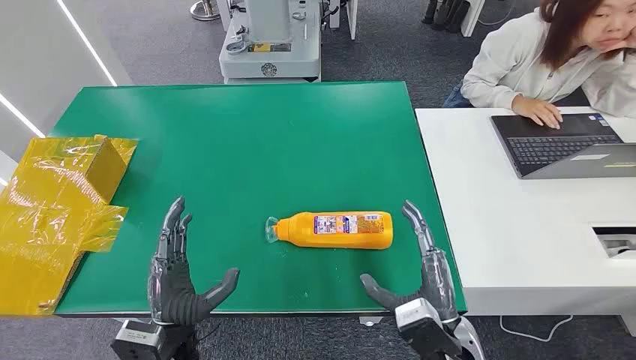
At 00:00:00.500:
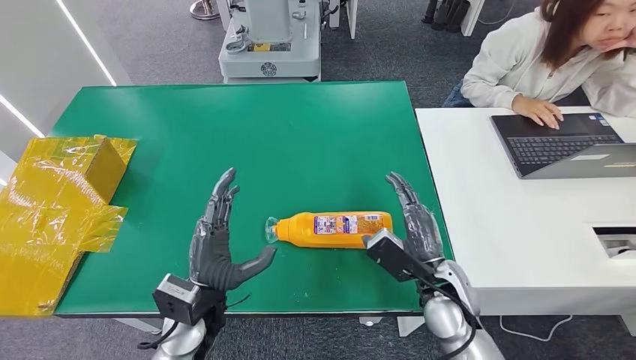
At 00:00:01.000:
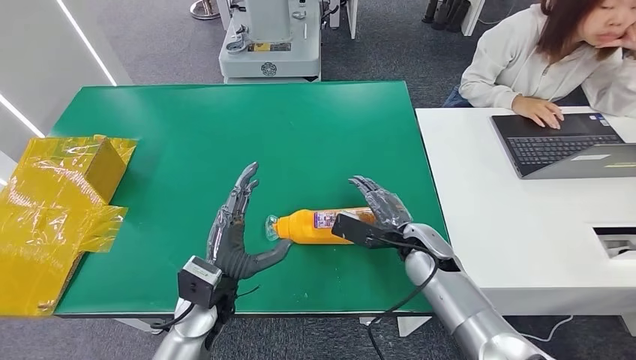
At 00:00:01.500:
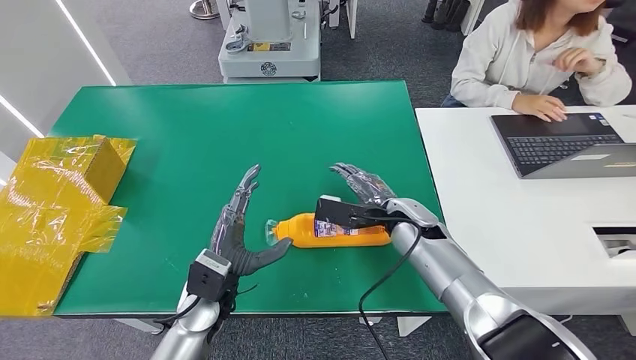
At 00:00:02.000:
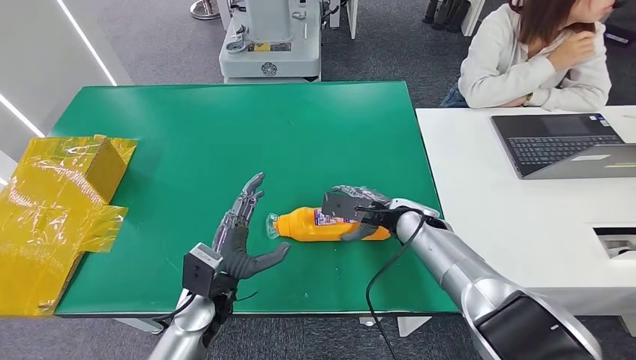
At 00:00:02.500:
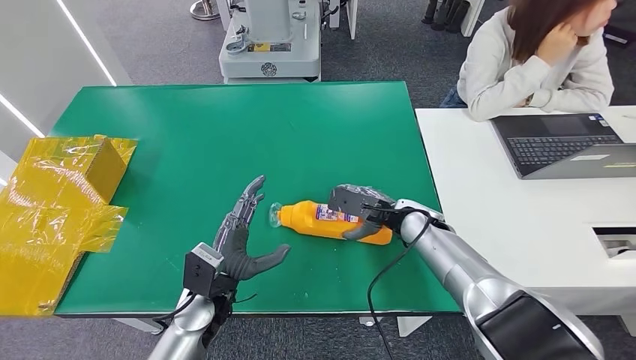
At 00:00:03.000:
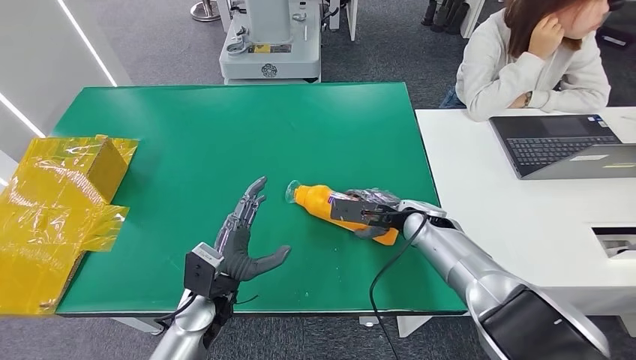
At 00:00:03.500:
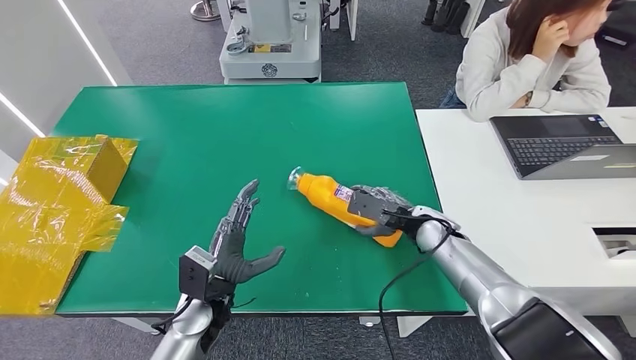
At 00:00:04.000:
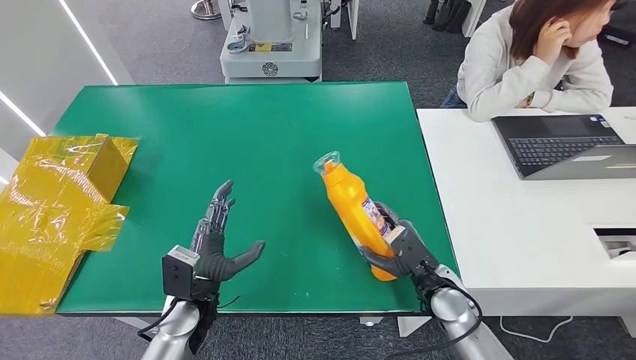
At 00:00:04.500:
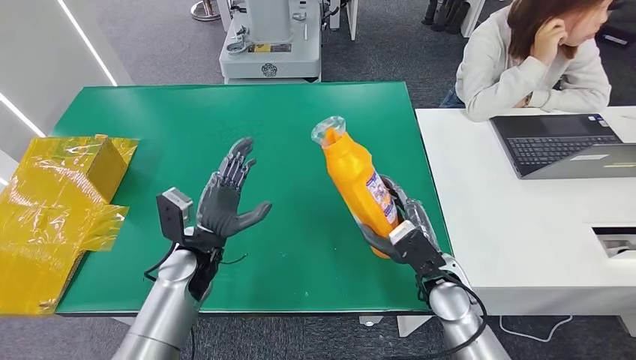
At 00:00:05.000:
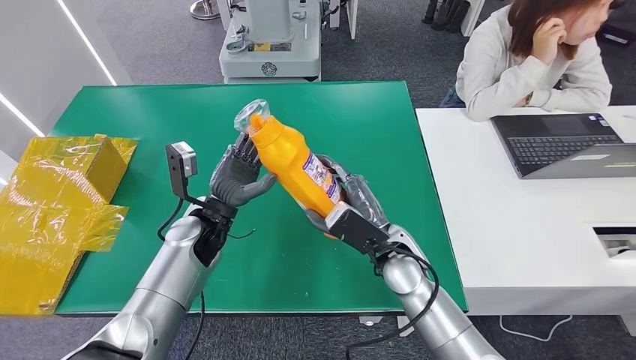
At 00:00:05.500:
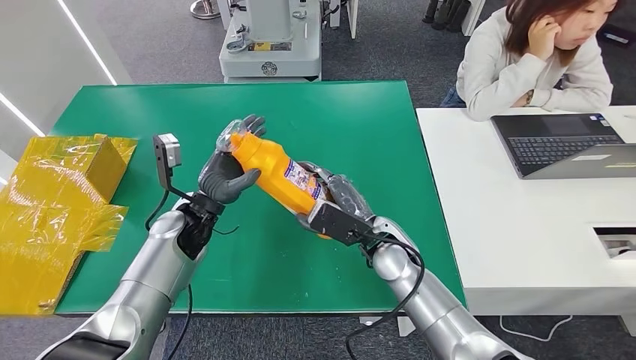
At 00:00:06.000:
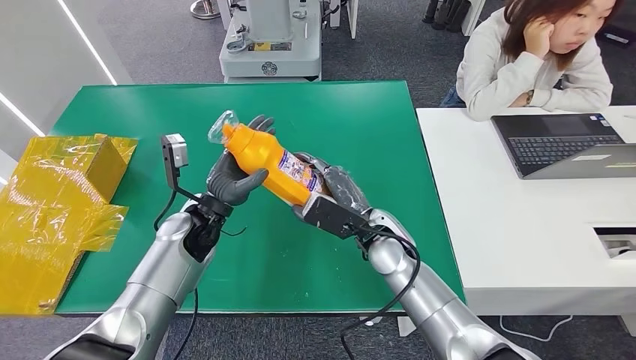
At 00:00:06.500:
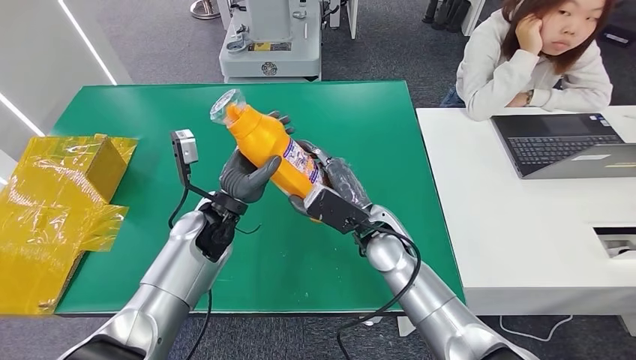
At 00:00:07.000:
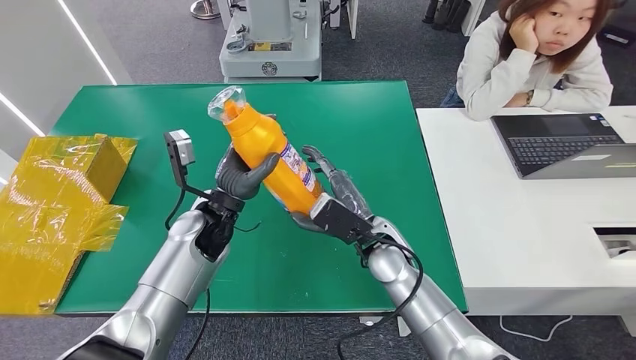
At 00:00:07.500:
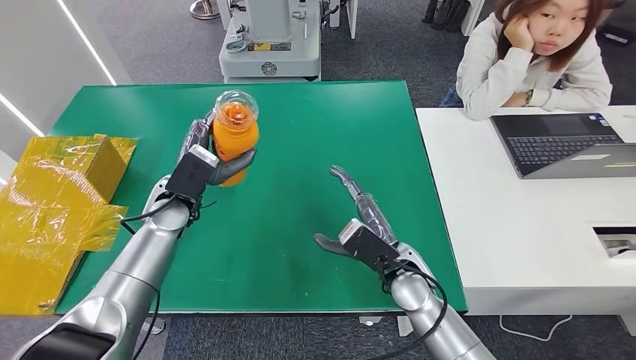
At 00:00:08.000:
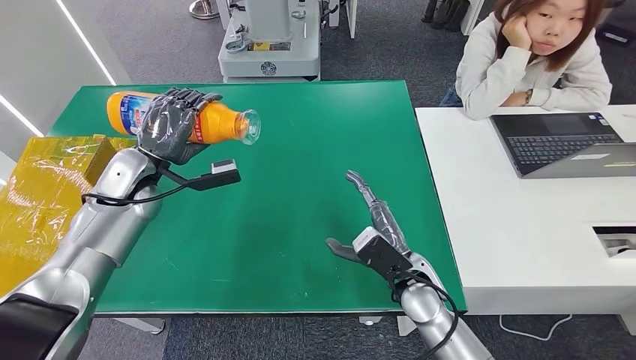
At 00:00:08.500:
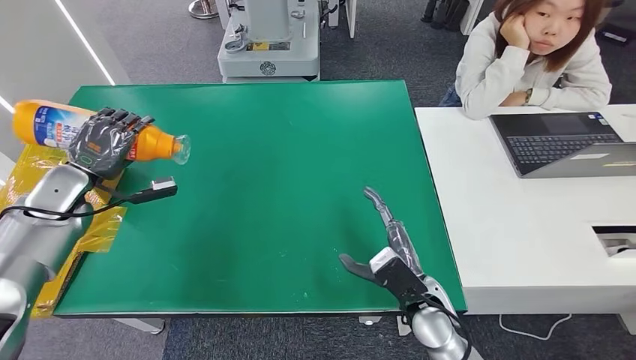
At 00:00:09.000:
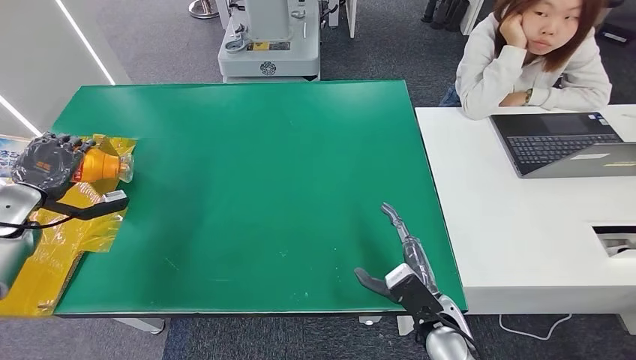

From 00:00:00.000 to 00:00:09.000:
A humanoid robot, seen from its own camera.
Step, from 00:00:00.000 to 00:00:05.000: Pick up the bottle from the table.
From 00:00:02.000 to 00:00:04.500: The right hand shifts roughly 10 cm backward. The left hand shifts roughly 5 cm forward.
From 00:00:04.500 to 00:00:07.000: The left hand changes place by some 5 cm. The right hand heads to the left and forward, covering roughly 10 cm.

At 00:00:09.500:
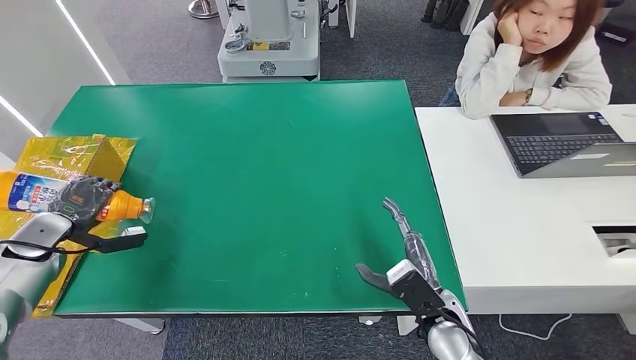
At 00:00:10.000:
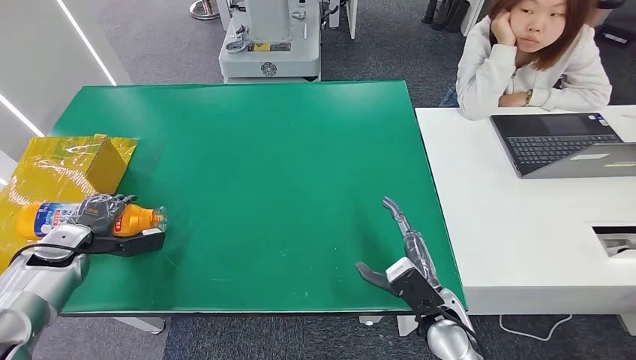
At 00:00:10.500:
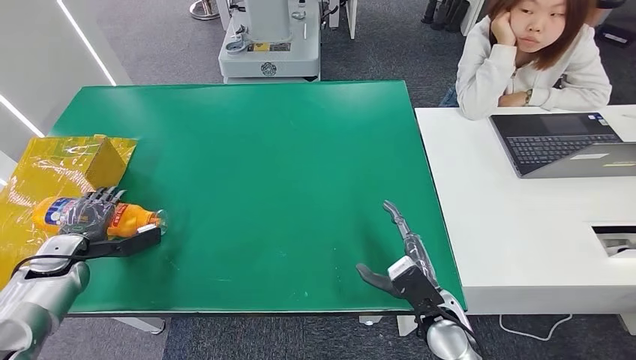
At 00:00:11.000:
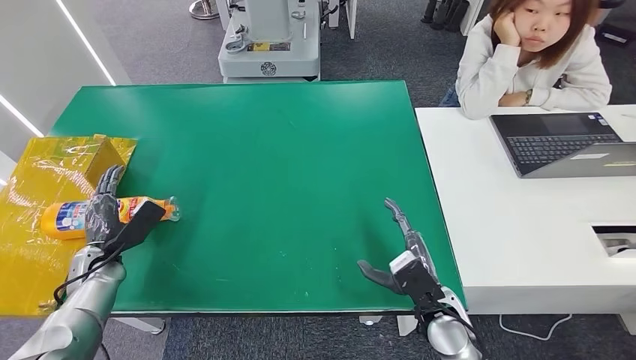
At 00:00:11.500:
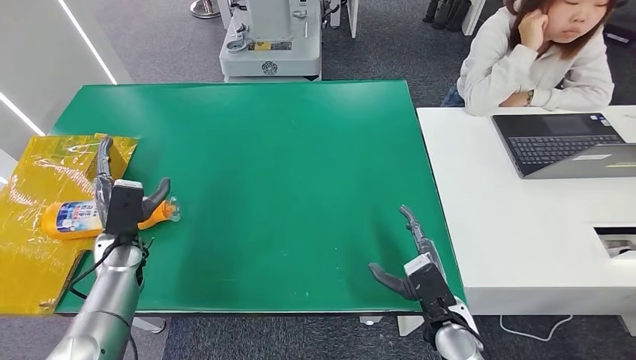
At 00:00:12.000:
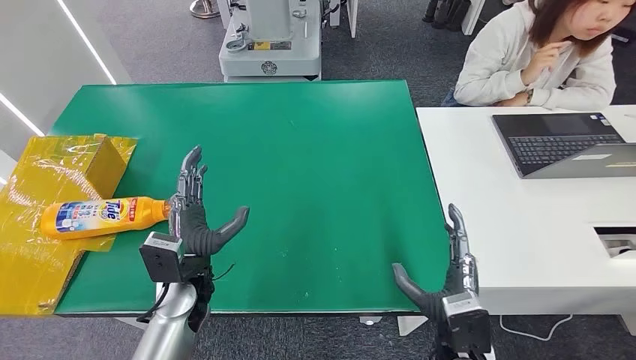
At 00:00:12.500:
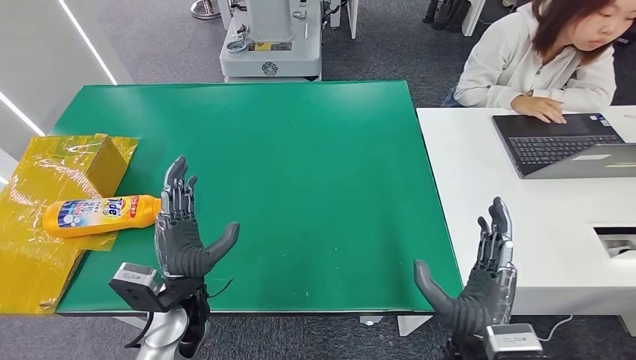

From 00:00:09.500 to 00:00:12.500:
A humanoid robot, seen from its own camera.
Step, from 00:00:09.500 to 00:00:12.500: Turn the bottle to the front side.
From 00:00:09.500 to 00:00:11.000: The left hand travels to the right and downward by some 10 cm.
From 00:00:11.000 to 00:00:12.500: The left hand travels to the right by about 25 cm, while the right hand moves upward and backward, roughly 10 cm.
